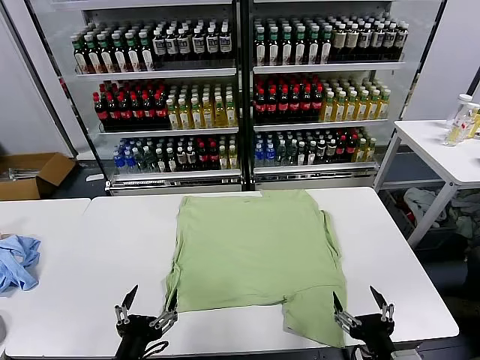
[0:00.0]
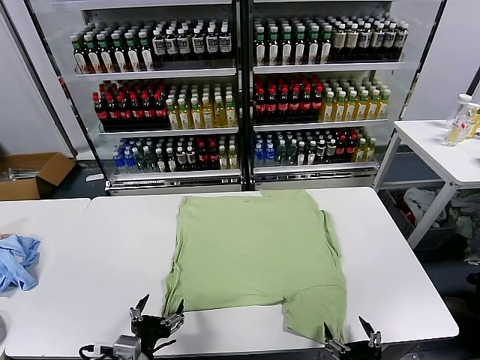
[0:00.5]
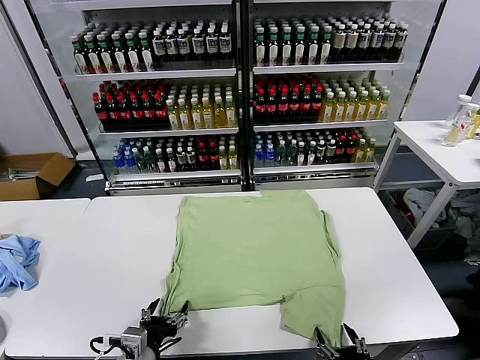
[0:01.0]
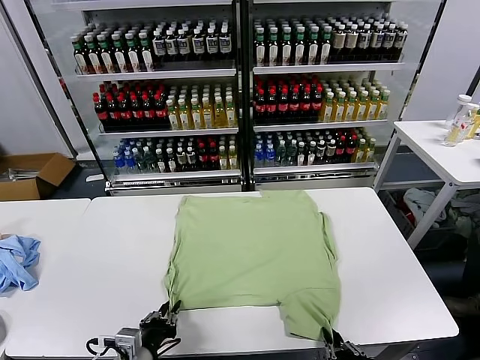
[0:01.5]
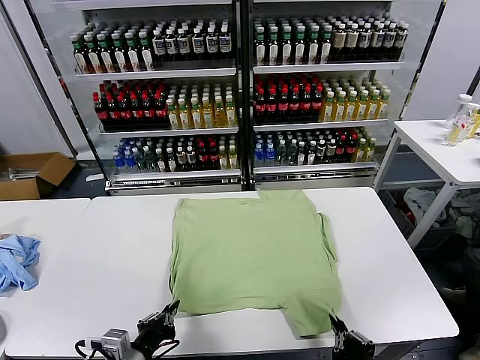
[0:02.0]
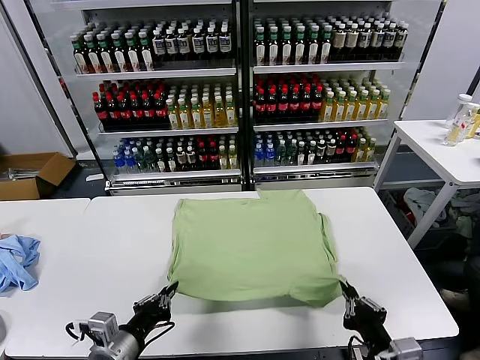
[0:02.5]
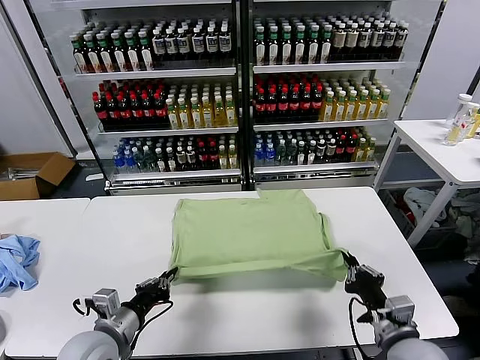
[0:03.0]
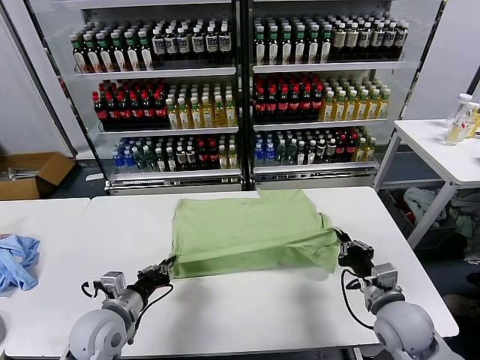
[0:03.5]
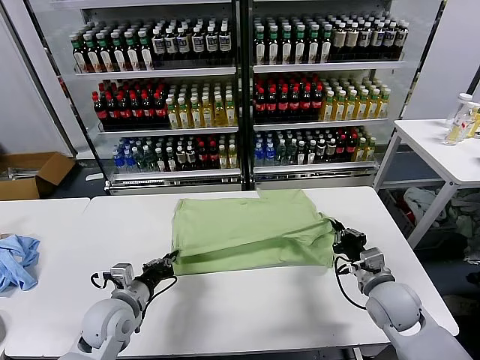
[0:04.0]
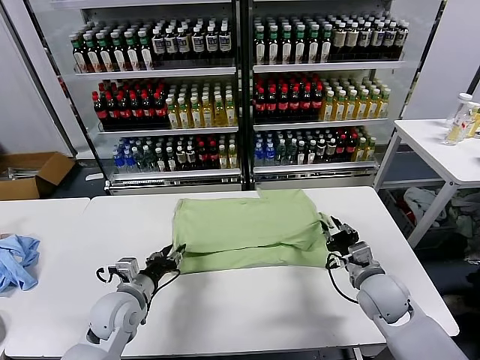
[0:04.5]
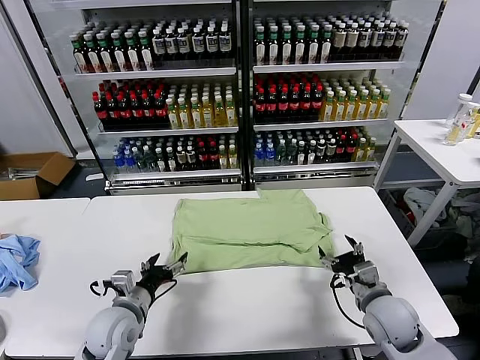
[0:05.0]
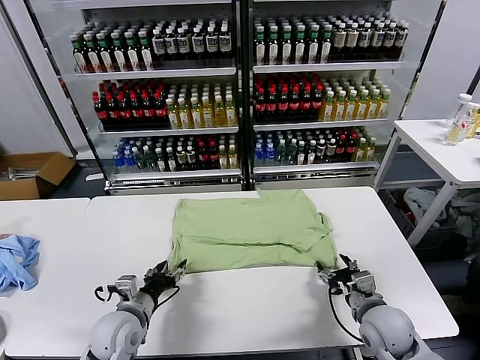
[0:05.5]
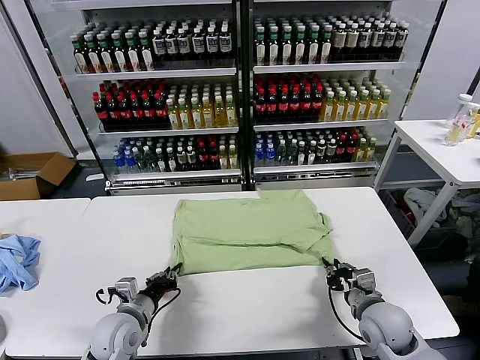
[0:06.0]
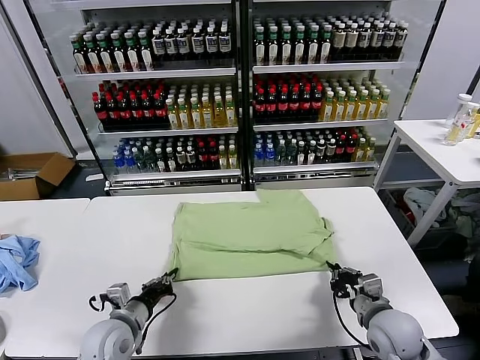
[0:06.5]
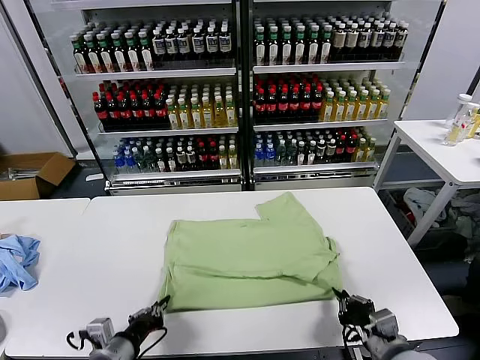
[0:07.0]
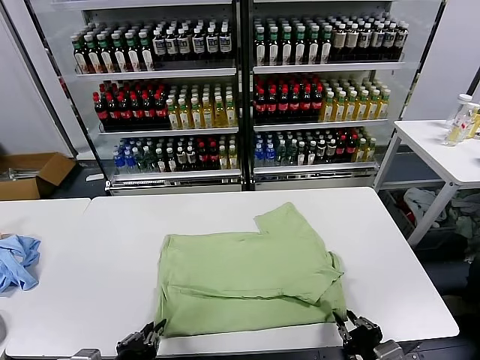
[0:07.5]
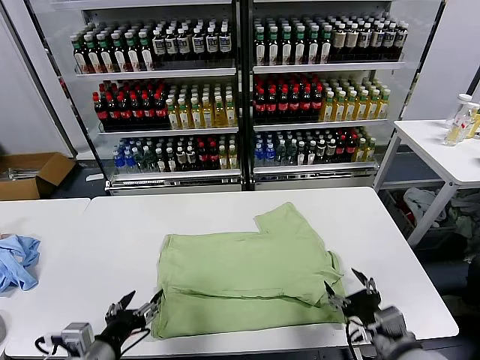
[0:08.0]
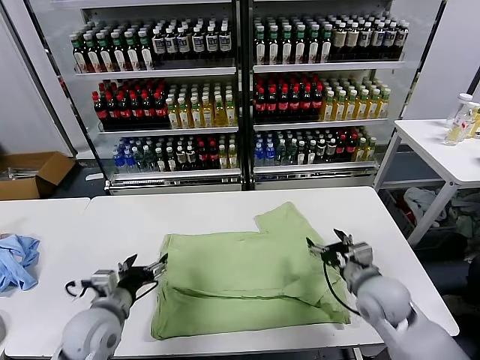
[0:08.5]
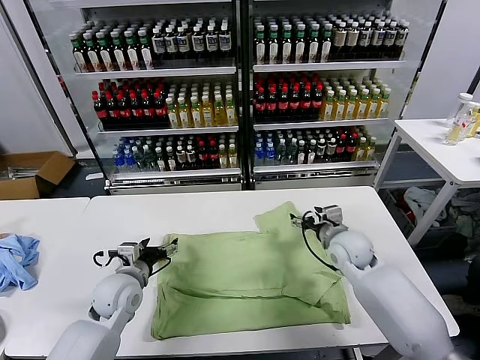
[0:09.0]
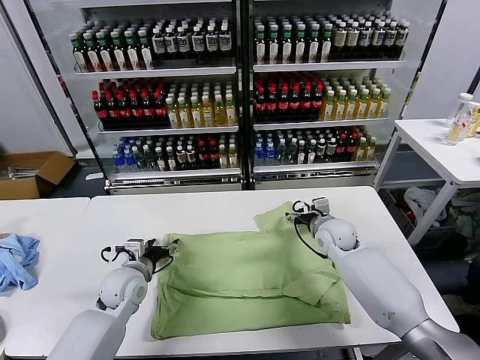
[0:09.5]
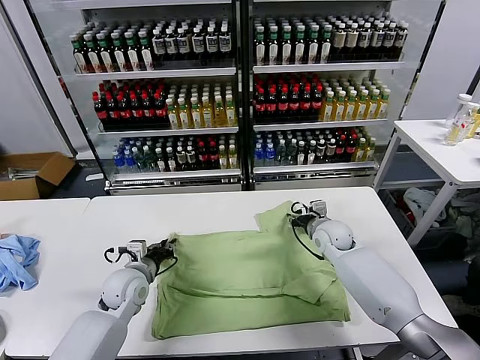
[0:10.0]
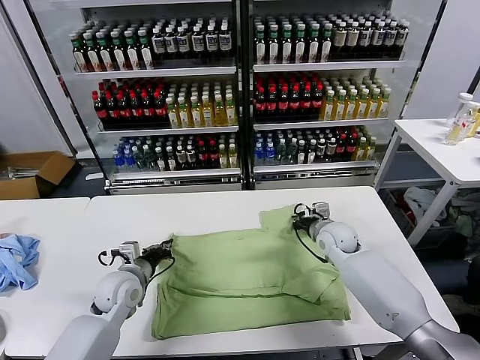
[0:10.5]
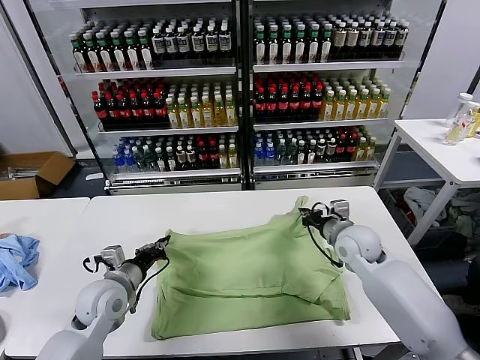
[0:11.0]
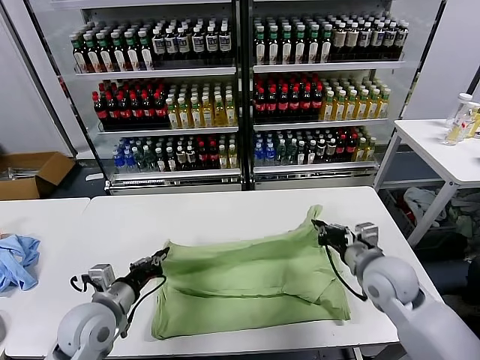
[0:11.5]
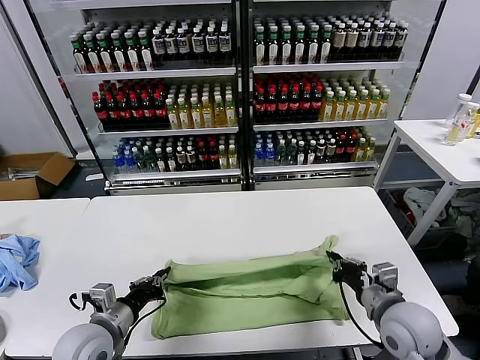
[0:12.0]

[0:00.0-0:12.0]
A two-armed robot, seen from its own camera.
Task of the whole recording: fold and organize the clothes.
Step, 0:00.0 to 0:01.5: use both grippers simultaneously to clamp the lower edge of the clothing fabric.
Step, 0:02.0 to 0:04.5: use both grippers to drag the lower edge of the fabric forward and fold it over the upper edge.
Step, 0:05.0 to 0:07.5: Drag the clothes downward with both gripper.
Step, 0:08.0 to 0:10.0: use both grippers simultaneously to clamp the upper edge of the clothing fabric.
0:02.0 to 0:04.0: The left gripper is displaced forward by roughly 15 cm, while the right gripper is displaced forward by roughly 25 cm.
0:04.0 to 0:06.0: The left gripper opens, then closes again. The right gripper shifts by approximately 5 cm, and opens and closes again.
0:06.0 to 0:08.0: The two grippers go approximately 10 cm backward and upward. The left gripper opens up; the right gripper opens up.
0:08.0 to 0:10.0: Both grippers move forward, some 25 cm. The right gripper closes its fingers. Meanwhile the left gripper closes its fingers.
0:10.0 to 0:12.0: The left gripper is displaced backward by approximately 15 cm; the right gripper heads backward, covering some 25 cm, and closes its fingers.

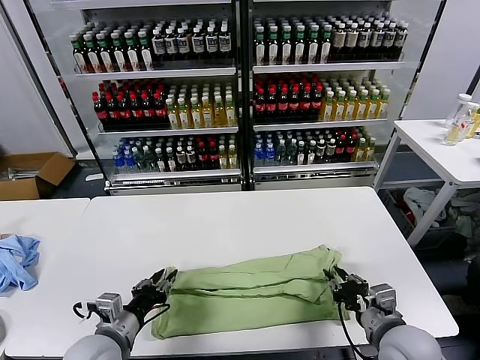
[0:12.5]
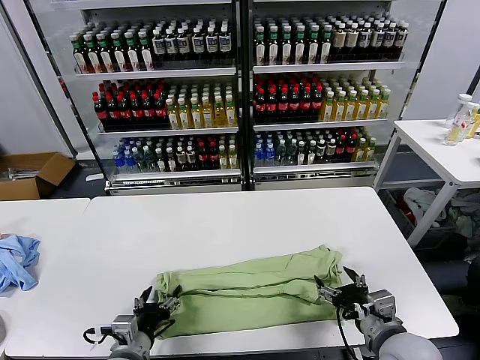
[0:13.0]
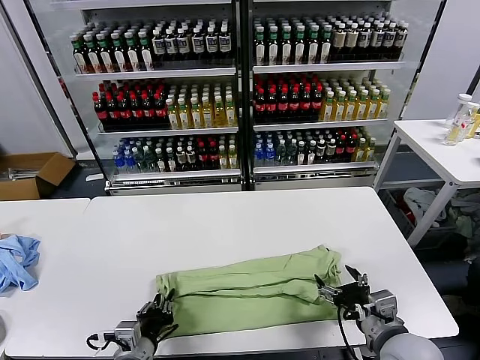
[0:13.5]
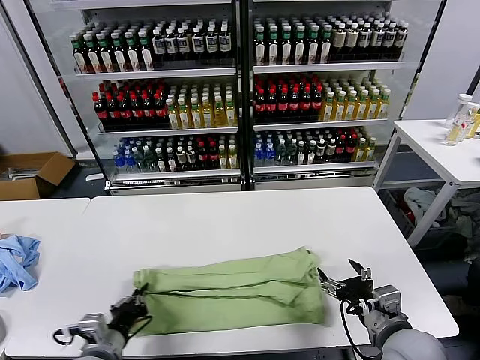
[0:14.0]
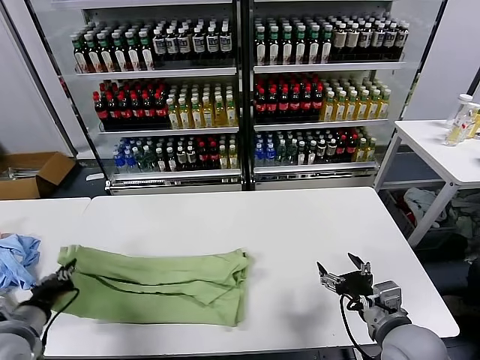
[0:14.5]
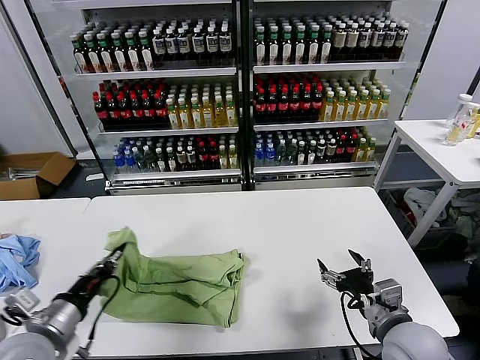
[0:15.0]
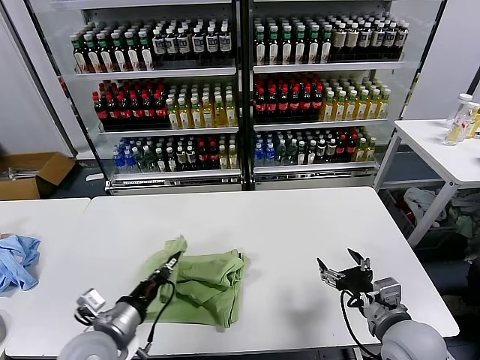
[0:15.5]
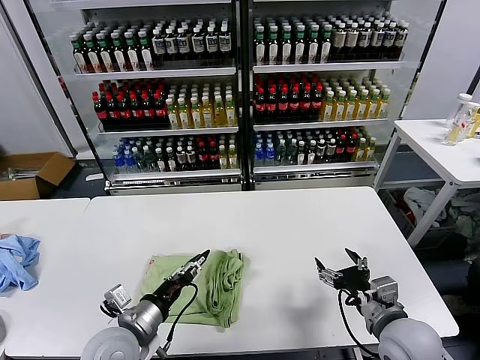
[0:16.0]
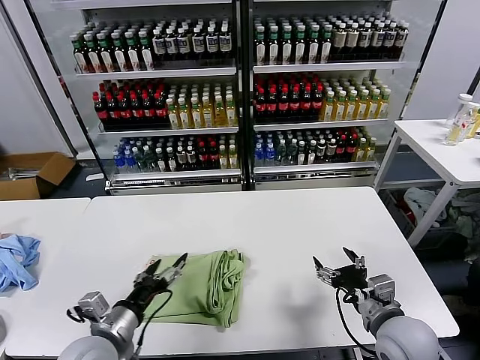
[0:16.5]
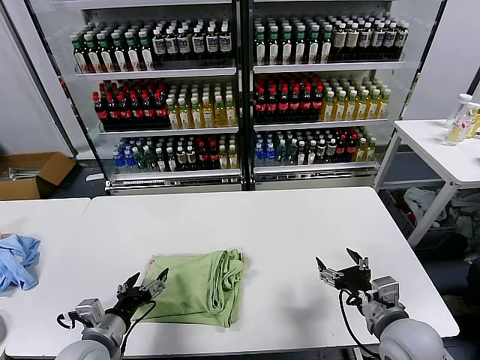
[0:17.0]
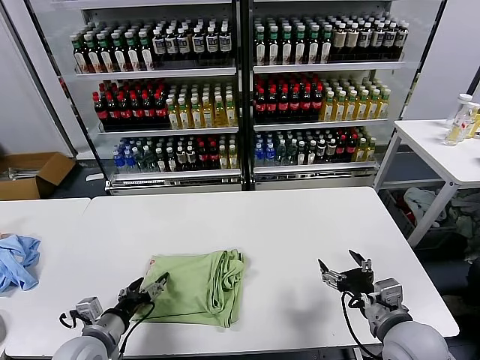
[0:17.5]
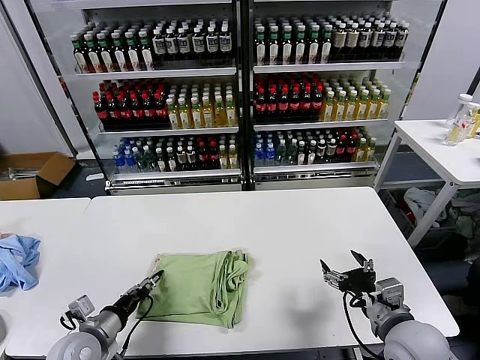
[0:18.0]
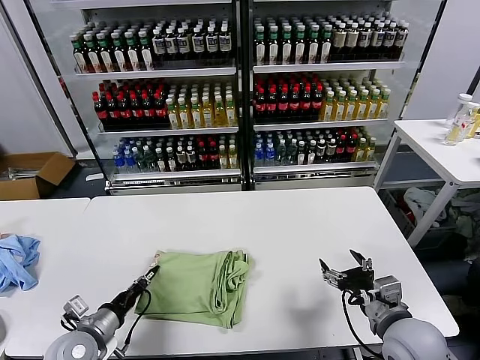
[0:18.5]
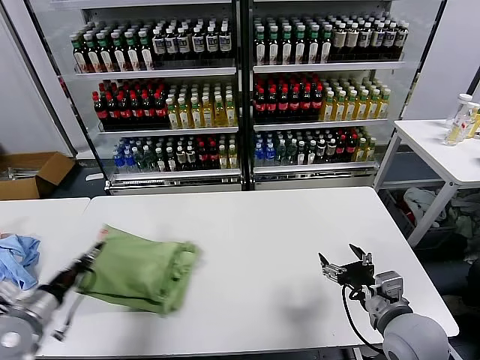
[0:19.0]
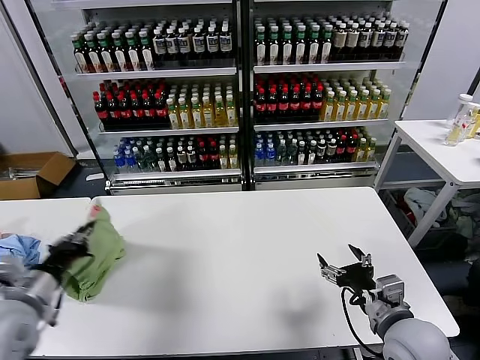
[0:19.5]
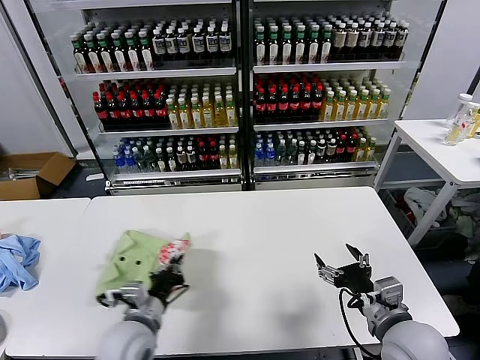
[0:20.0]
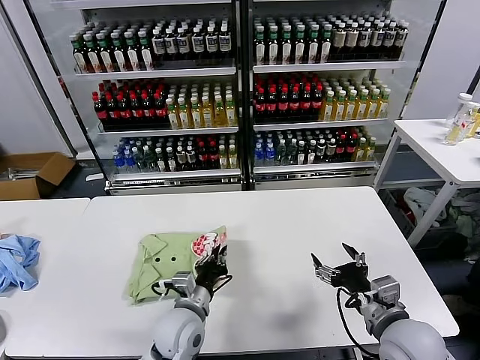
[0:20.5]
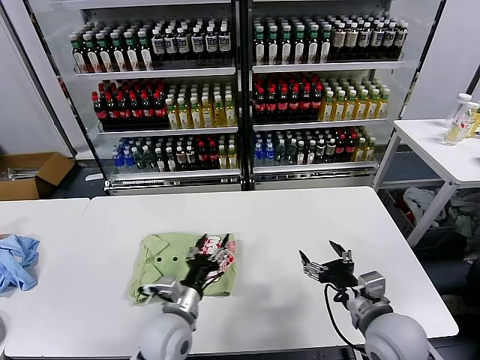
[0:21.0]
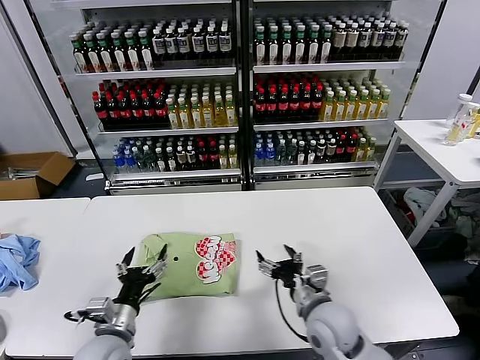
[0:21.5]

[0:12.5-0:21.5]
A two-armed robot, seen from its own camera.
Task of the whole recording: fold and organize the clothes.
Step, 0:13.0 to 0:13.5: use the left gripper to clamp the left edge of the fabric.
Step, 0:14.0 to 0:16.0: use the left gripper to drag the left edge of the fabric to the left and folds it over the right edge.
Step, 0:16.5 to 0:20.5: Flip the folded clothes over with left gripper.
0:12.5 to 0:14.5: The left gripper shifts some 15 cm to the left, and closes, while the right gripper opens its fingers.
0:14.5 to 0:17.0: The left gripper goes about 15 cm to the right and downward, and opens its fingers.
0:17.0 to 0:19.5: The left gripper is displaced upward and to the left by approximately 15 cm, and closes.
0:19.5 to 0:21.5: The right gripper is displaced to the left, downward and forward by about 15 cm. The left gripper moves to the right and downward, about 20 cm, and opens its fingers.

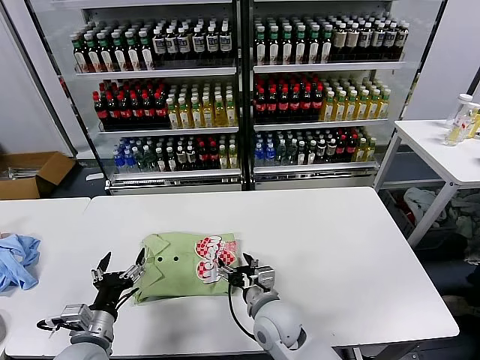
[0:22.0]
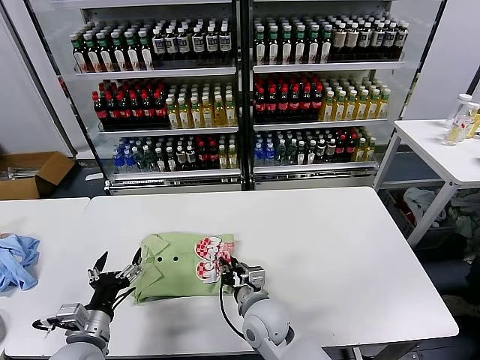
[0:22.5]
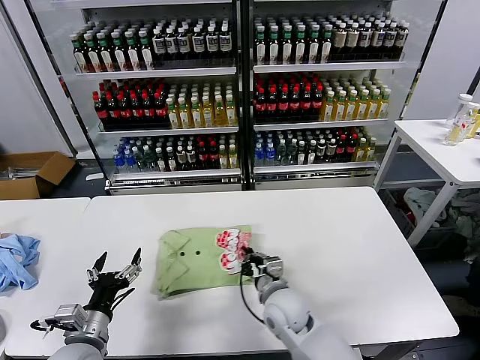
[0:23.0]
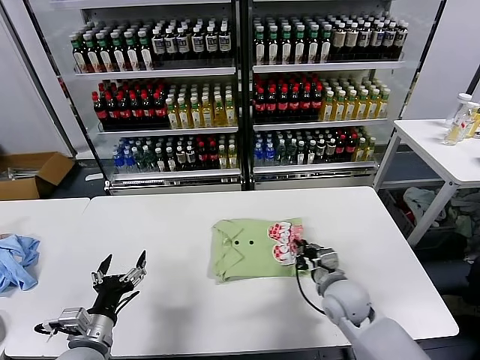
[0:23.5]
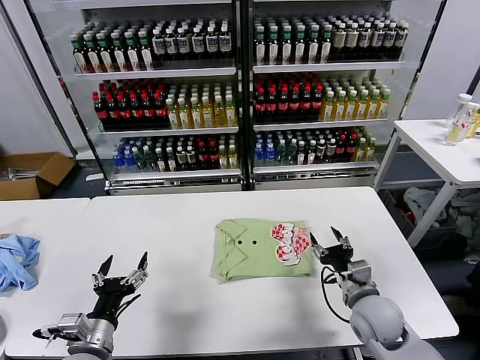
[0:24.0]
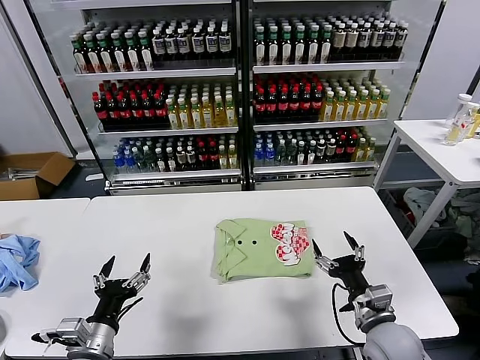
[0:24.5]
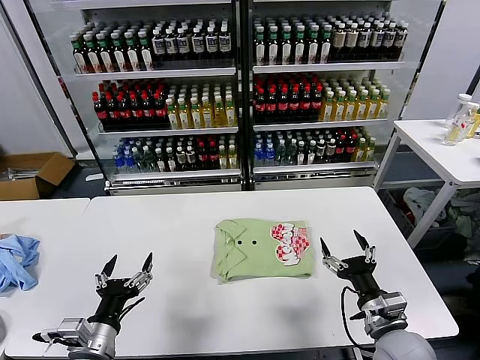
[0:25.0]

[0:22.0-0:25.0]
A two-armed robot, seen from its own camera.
Task of the whole recording: fold and organize the clothes.
Step, 0:22.0 to 0:23.5: Drag the clothes to the center of the table.
0:22.0 to 0:23.5: The right gripper shifts about 15 cm to the right, and closes.
0:23.5 to 0:25.0: The right gripper is displaced backward and to the right by approximately 15 cm, and opens up.
